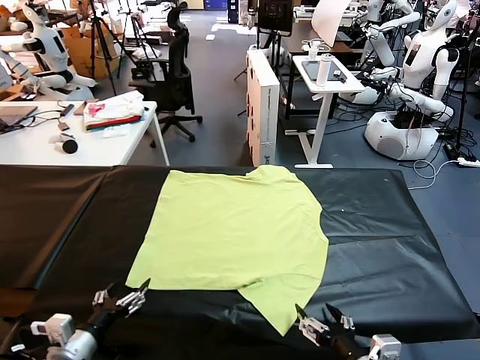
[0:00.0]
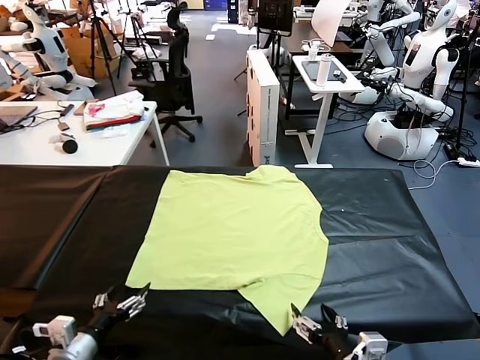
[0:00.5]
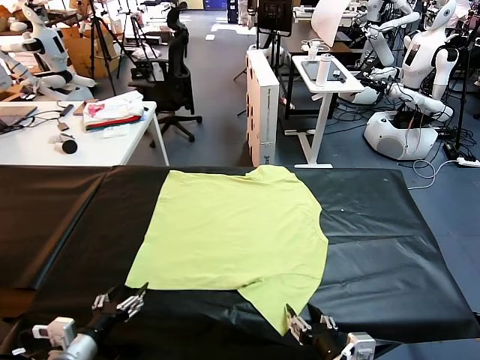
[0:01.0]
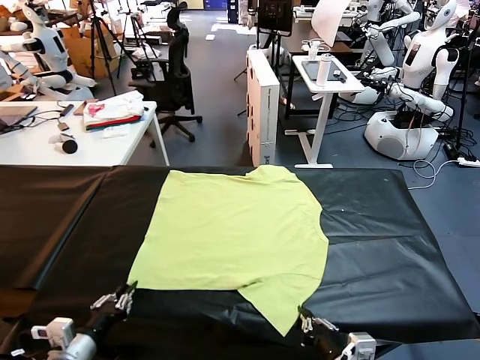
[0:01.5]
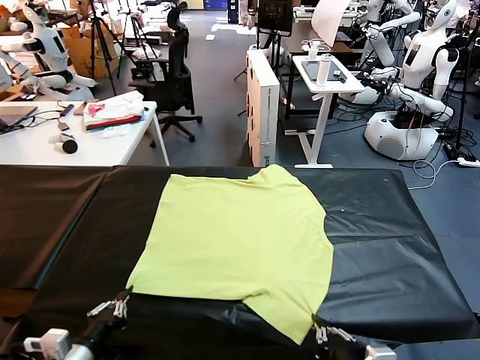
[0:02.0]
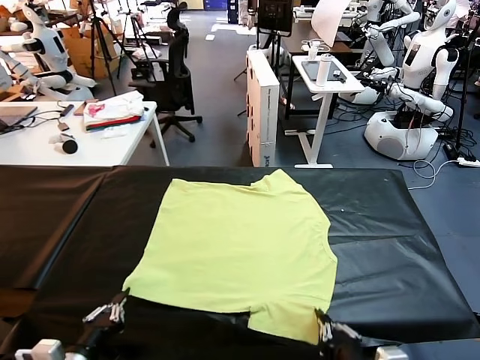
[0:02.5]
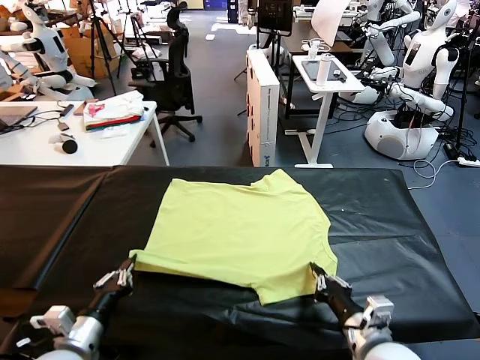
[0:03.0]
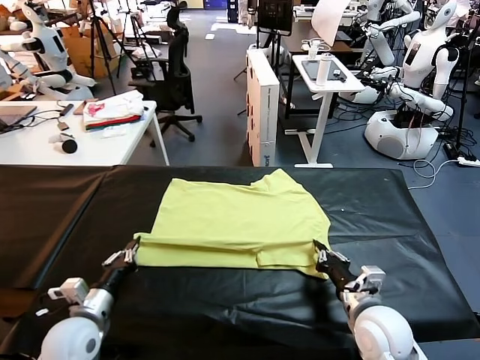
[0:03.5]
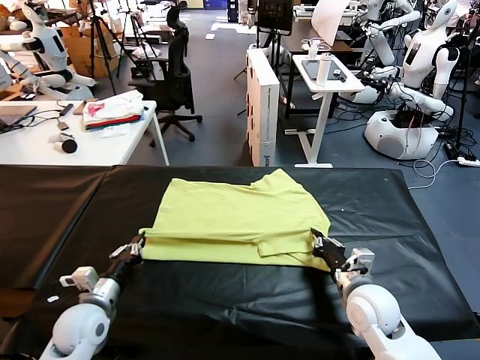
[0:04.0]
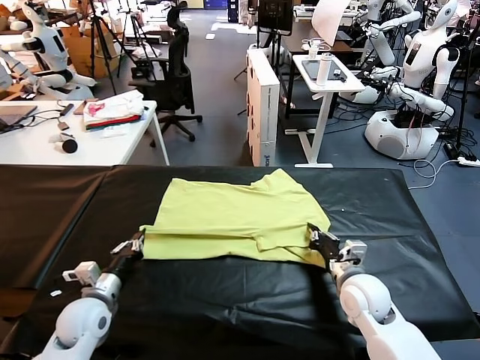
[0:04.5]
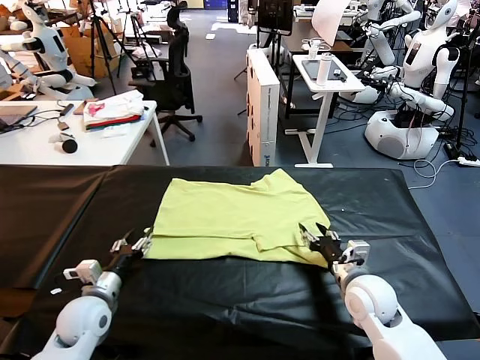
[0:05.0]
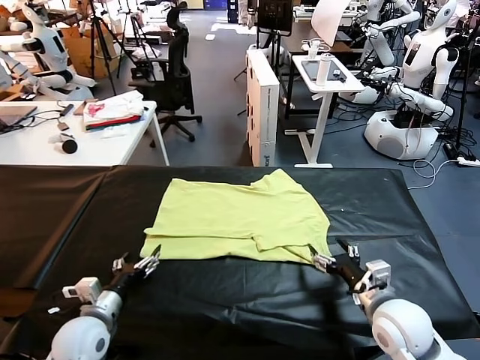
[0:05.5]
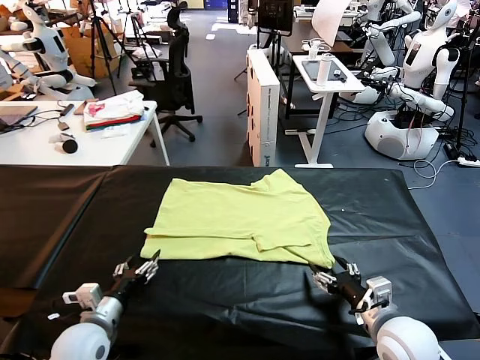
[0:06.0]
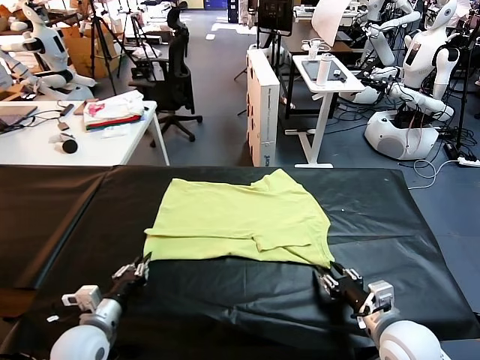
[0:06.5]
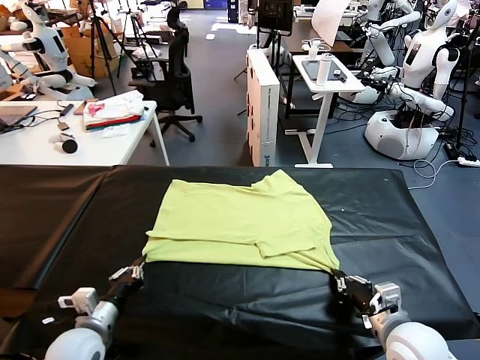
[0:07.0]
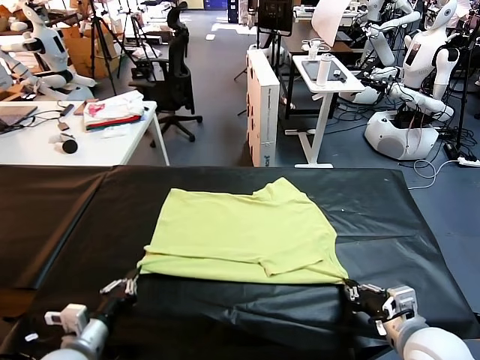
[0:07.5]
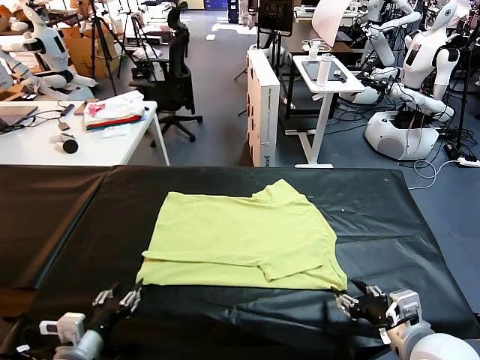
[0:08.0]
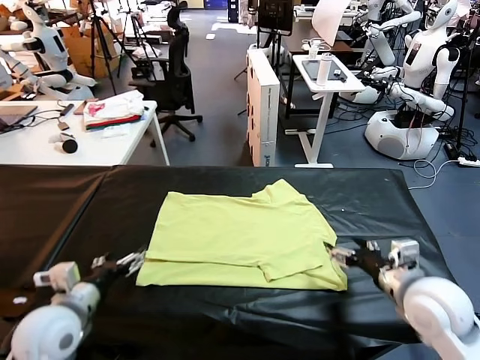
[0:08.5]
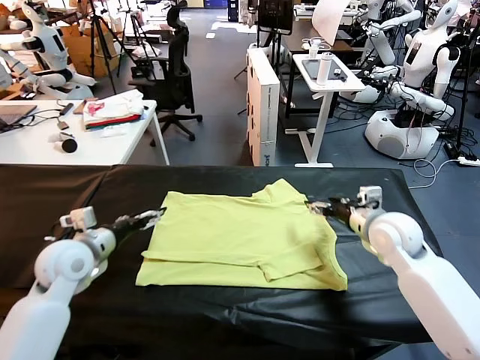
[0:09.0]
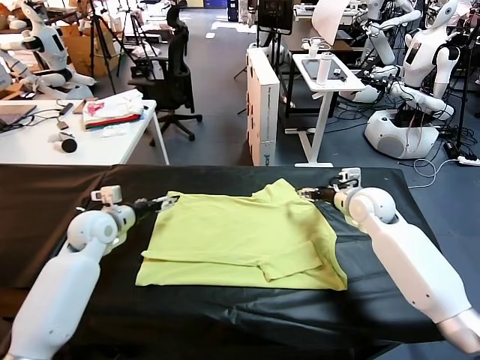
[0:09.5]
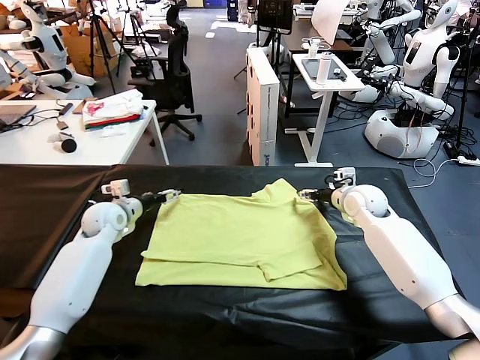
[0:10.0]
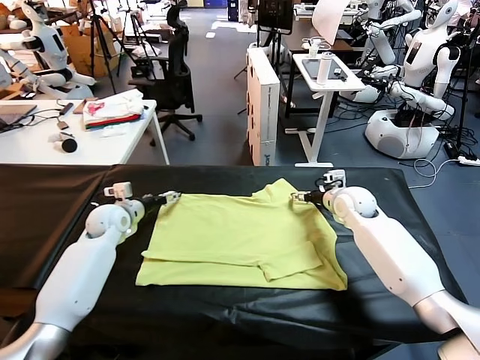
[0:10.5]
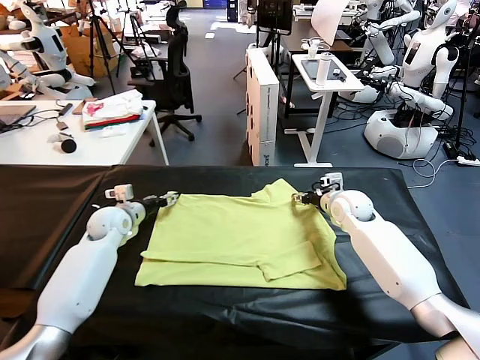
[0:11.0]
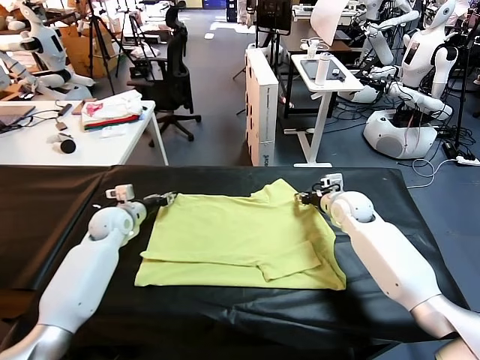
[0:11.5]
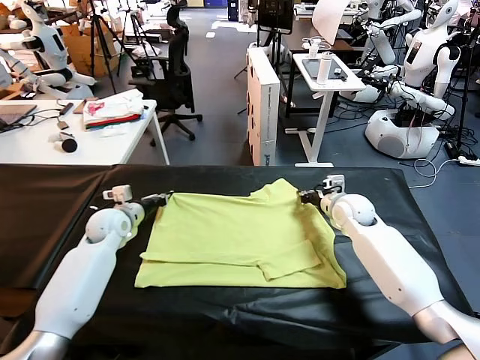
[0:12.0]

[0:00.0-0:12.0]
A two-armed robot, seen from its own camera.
Task of the whole recording: fold and organize the clothes.
Step, 0:00.0 to 0:02.0: use both grippers simultaneously to clamp the lower edge of the clothing fabric.
Step, 0:02.5 to 0:05.0: use both grippers to drag the lower edge of the fabric forward and fold it over the upper edge.
Step, 0:05.5 to 0:08.0: Drag the clothes downward with both gripper.
Step, 0:08.5 to 0:11.5: use both grippers simultaneously to clamp the upper edge of the clothing fabric.
0:02.0 to 0:04.0: Both grippers move forward, about 20 cm.
0:04.0 to 0:06.0: The right gripper moves backward, some 10 cm, and opens. The left gripper opens its fingers.
0:06.0 to 0:08.0: The left gripper moves backward, roughly 5 cm, and closes, then opens again. Meanwhile the right gripper goes some 10 cm upward, and closes and opens again.
0:08.0 to 0:10.0: The grippers both shift forward by about 35 cm.
0:10.0 to 0:12.0: The right gripper closes up; the left gripper closes.

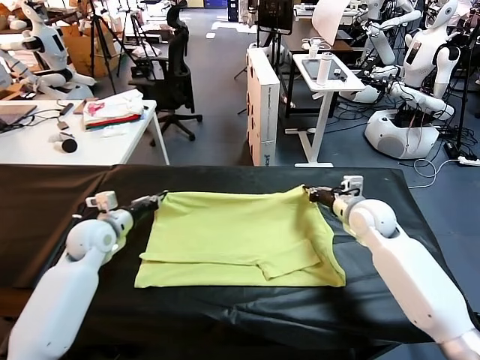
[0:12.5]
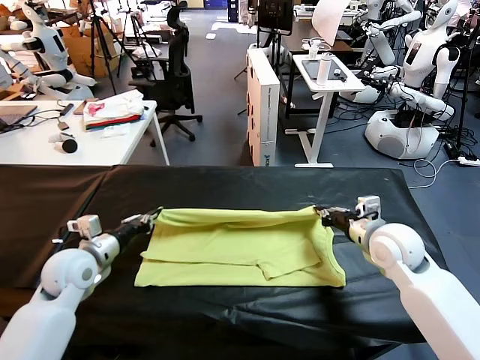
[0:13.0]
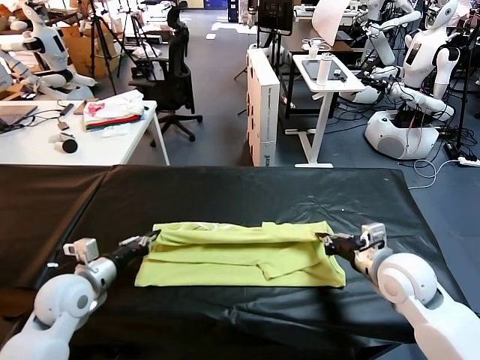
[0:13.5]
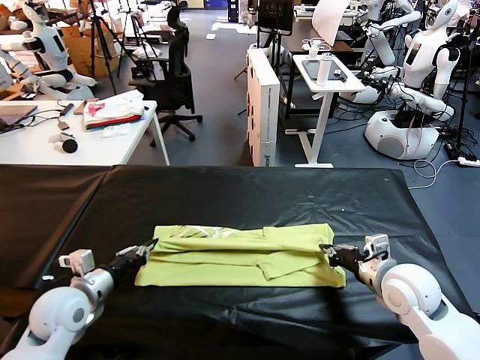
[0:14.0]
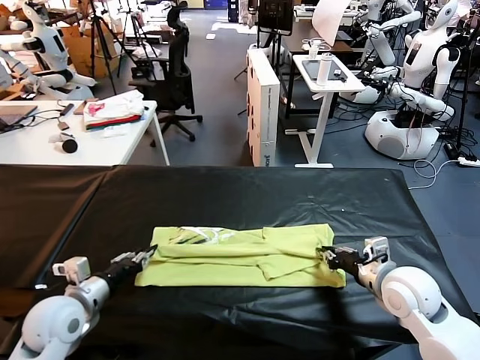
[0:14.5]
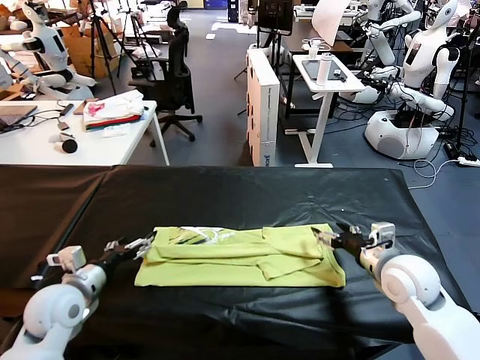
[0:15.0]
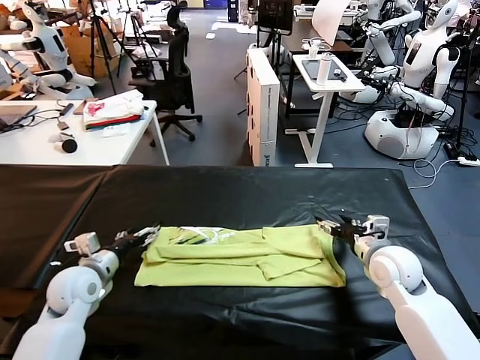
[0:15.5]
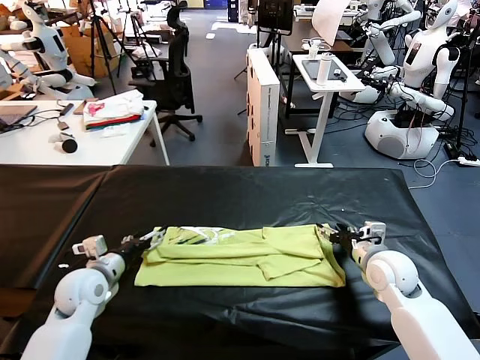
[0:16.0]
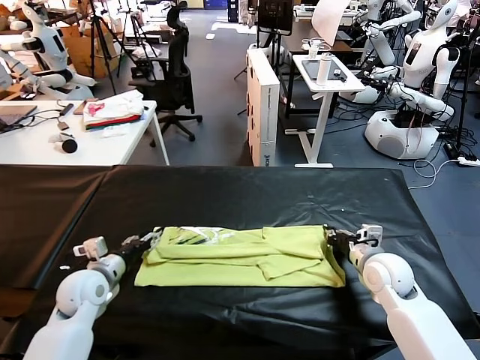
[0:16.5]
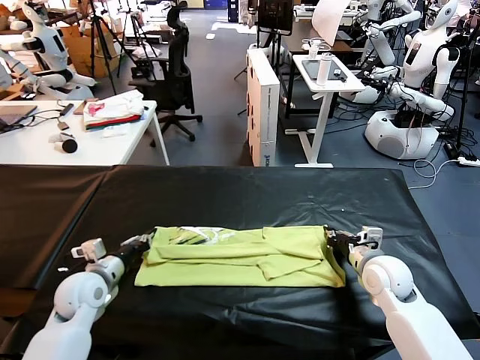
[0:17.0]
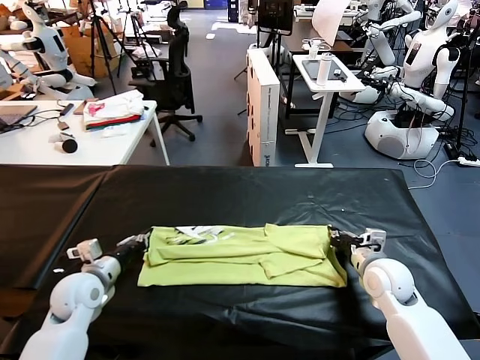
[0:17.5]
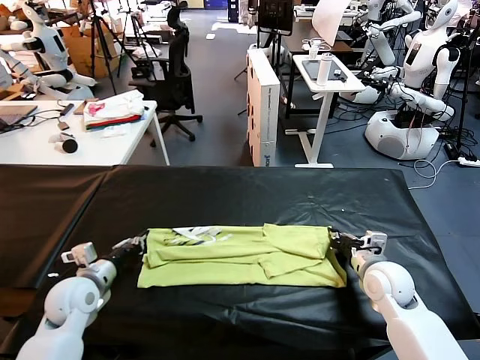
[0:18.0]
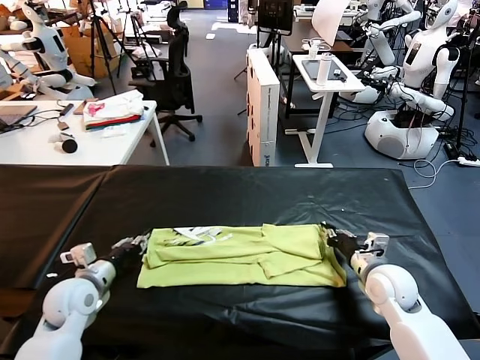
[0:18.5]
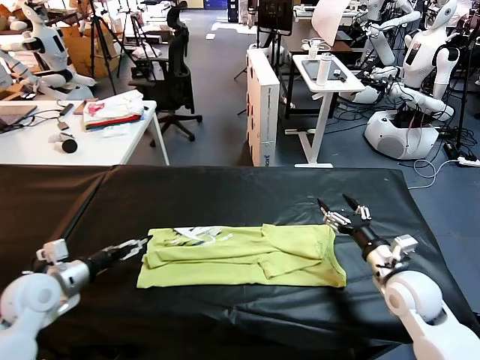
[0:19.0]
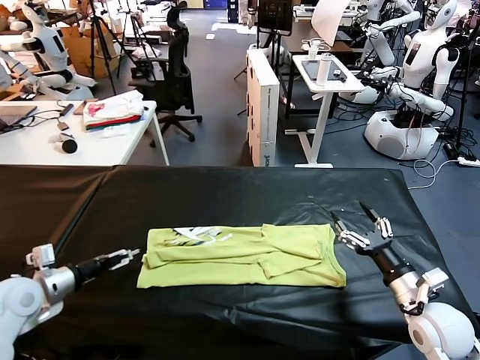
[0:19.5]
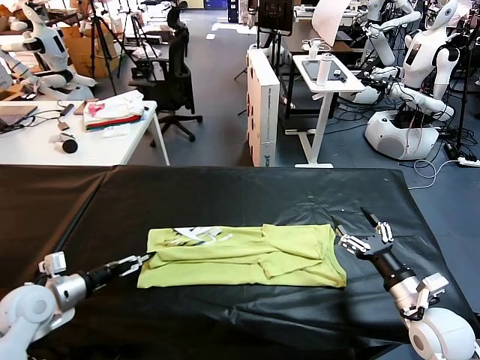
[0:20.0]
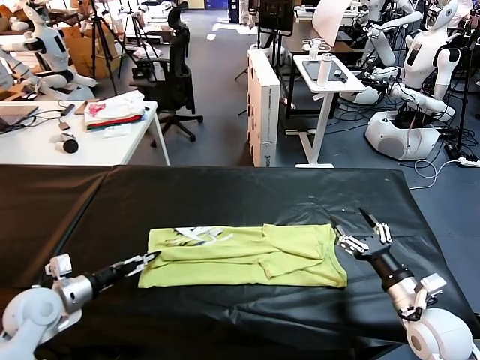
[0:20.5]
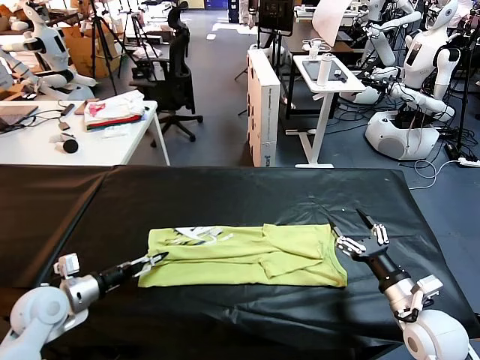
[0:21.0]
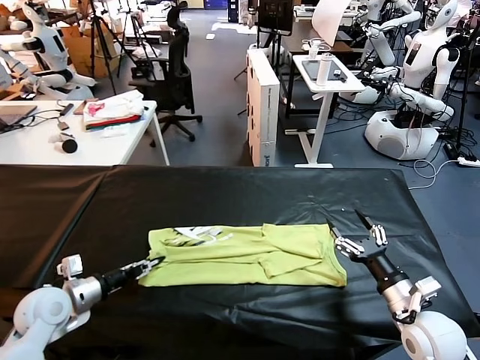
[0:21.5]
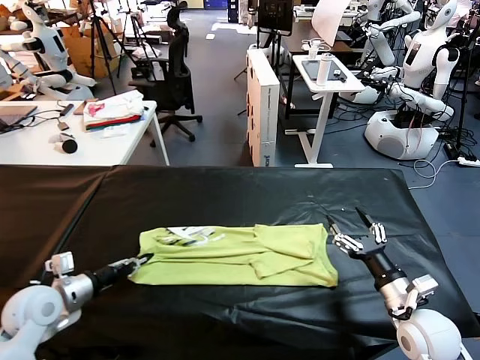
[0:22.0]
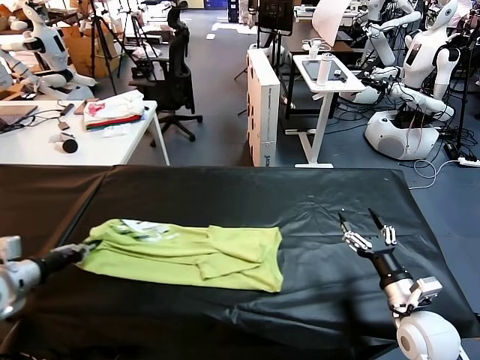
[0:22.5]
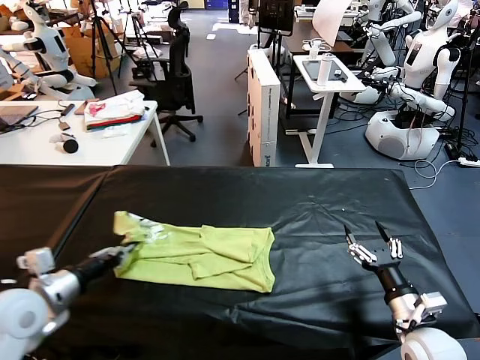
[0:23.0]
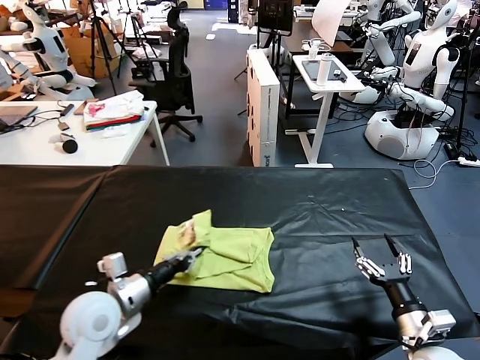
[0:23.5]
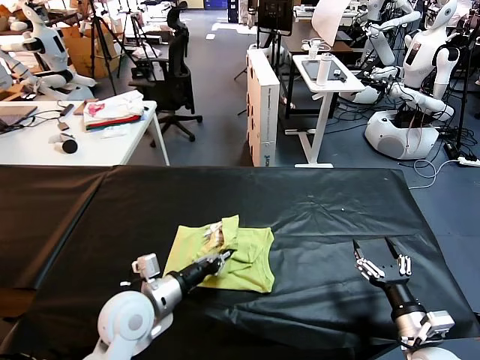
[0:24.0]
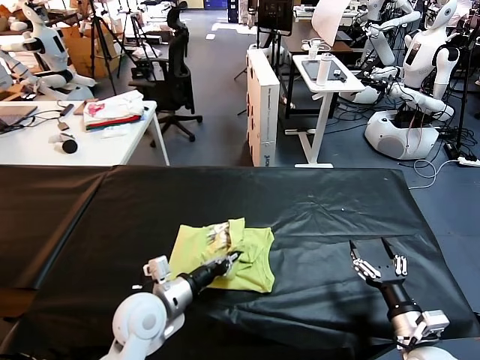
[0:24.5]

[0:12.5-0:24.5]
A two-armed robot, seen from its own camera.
Task of the whole recording: fold and organize the clothes.
Step, 0:12.5 to 0:14.5: use both grippers to drag the upper edge of the fabric backward and fold it over the lower edge.
Step, 0:15.0 to 0:21.5: use the left gripper to clamp the left edge of the fabric.
0:12.5 to 0:14.5: Both grippers move backward, about 15 cm. The right gripper opens. Meanwhile the left gripper opens.
0:14.5 to 0:16.5: The right gripper moves downward and forward, about 10 cm, and closes, while the left gripper shifts approximately 10 cm forward, and opens, then closes once more.
0:16.5 to 0:18.5: The left gripper closes, then reopens, while the right gripper opens up.
0:18.5 to 0:20.5: The left gripper travels to the left by approximately 5 cm, and opens up. The right gripper is displaced backward by roughly 10 cm, and opens up.
0:20.5 to 0:22.5: The left gripper shifts some 10 cm upward and to the left, and closes.
0:22.5 to 0:24.5: The right gripper is displaced backward by some 5 cm. The left gripper is displaced to the right by some 30 cm.

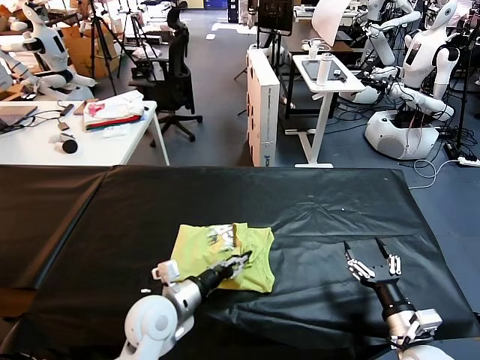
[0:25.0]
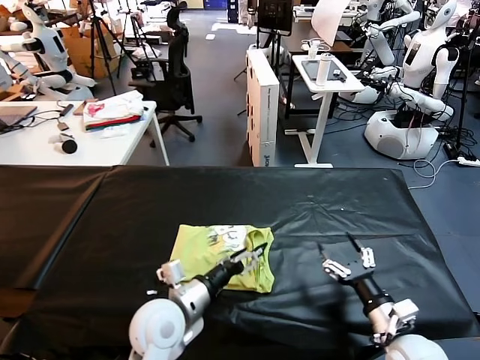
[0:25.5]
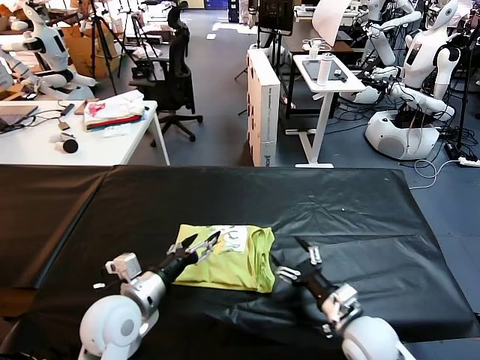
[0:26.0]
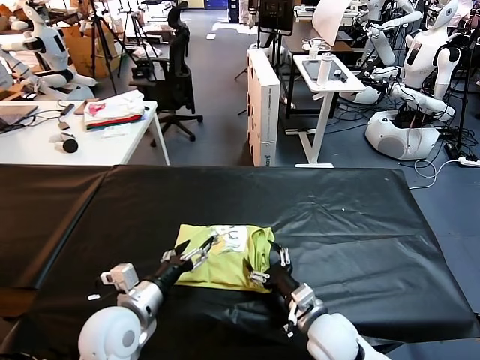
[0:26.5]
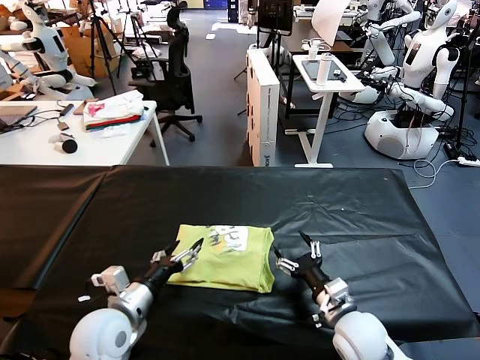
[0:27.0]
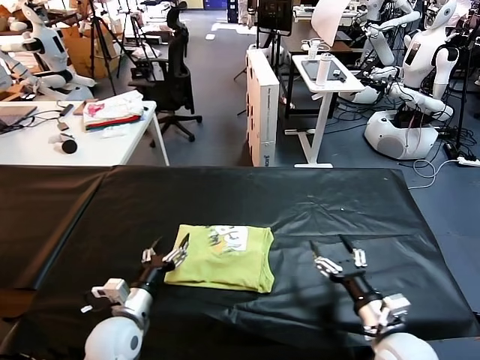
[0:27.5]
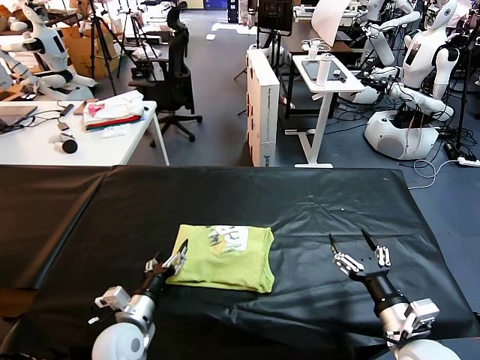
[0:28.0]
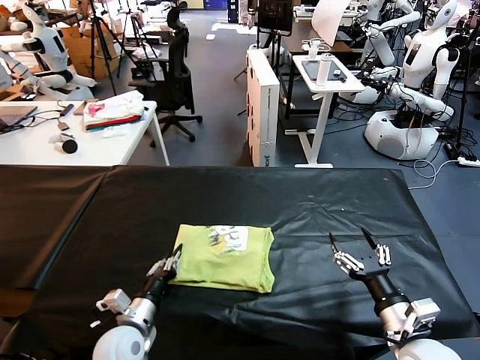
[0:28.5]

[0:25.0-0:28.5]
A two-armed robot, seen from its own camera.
Task of the whole recording: fold and organize the clothes.
0:25.0 to 0:27.0: The left gripper heads to the left, covering some 5 cm, and opens up. Meanwhile the right gripper shifts some 10 cm to the left and forward.
0:27.0 to 0:28.5: The left gripper shifts approximately 10 cm downward, and closes its fingers. The right gripper travels to the right, backward and upward by approximately 10 cm.
